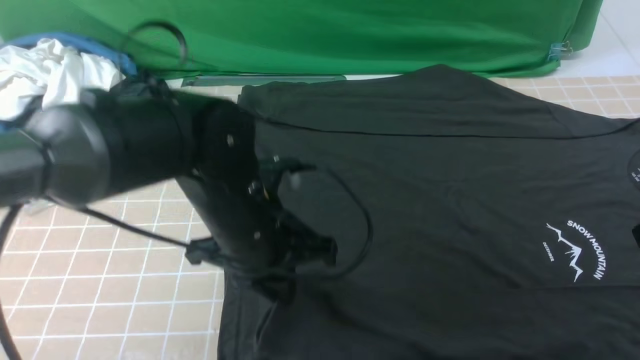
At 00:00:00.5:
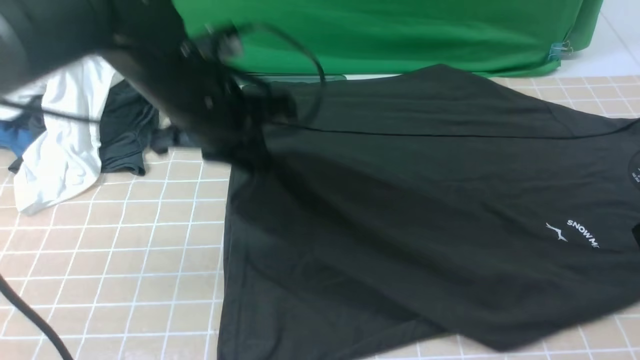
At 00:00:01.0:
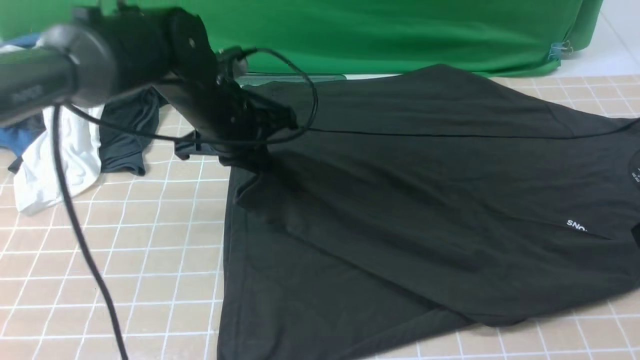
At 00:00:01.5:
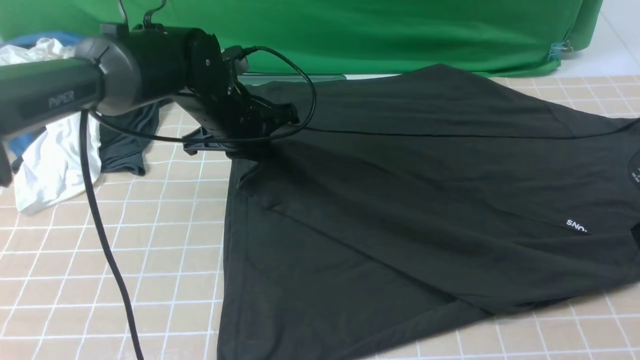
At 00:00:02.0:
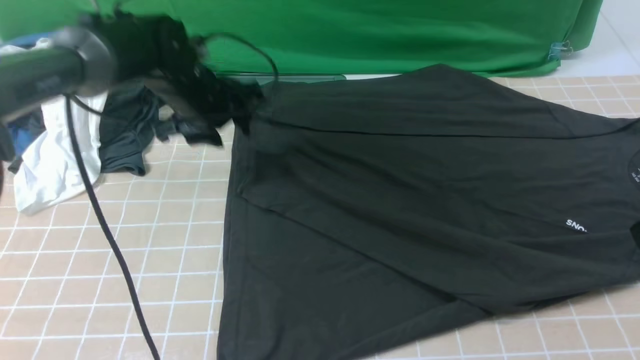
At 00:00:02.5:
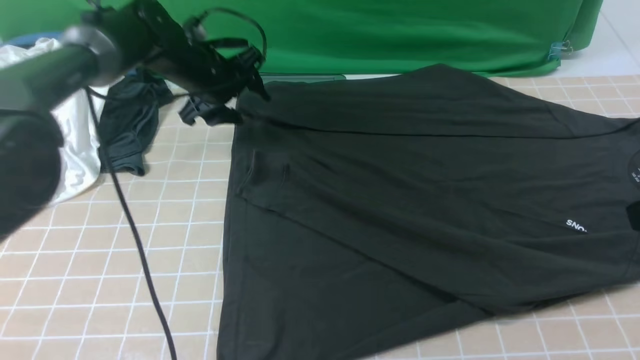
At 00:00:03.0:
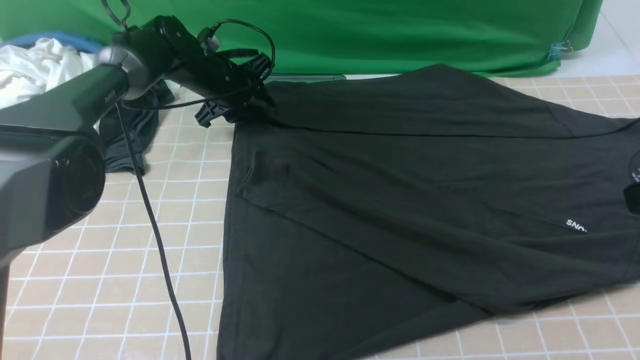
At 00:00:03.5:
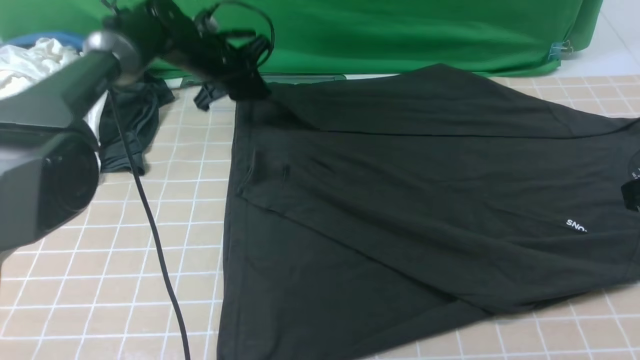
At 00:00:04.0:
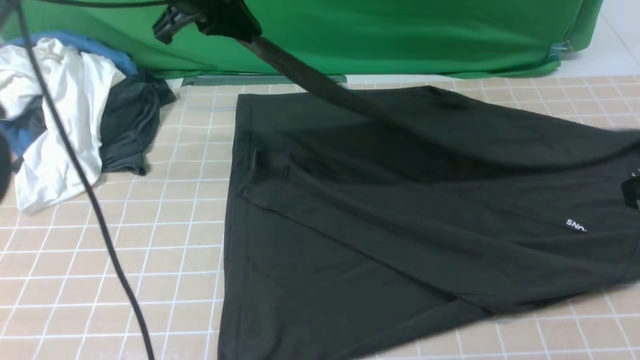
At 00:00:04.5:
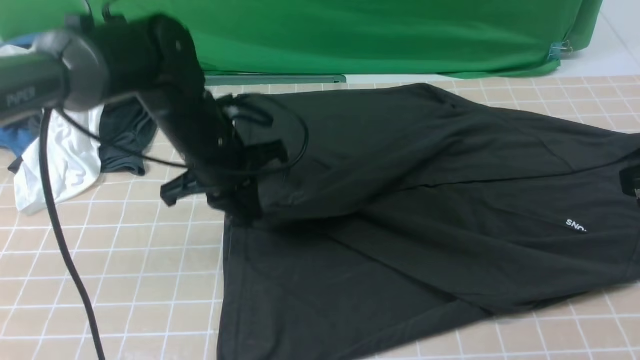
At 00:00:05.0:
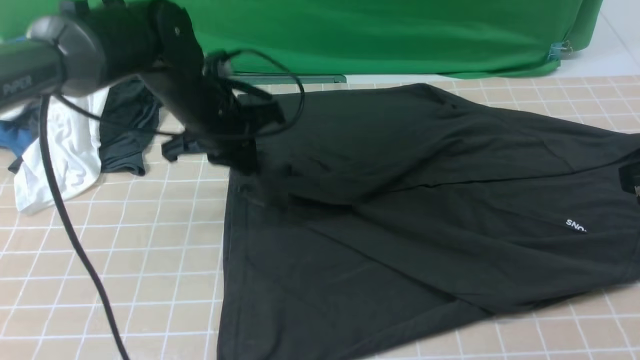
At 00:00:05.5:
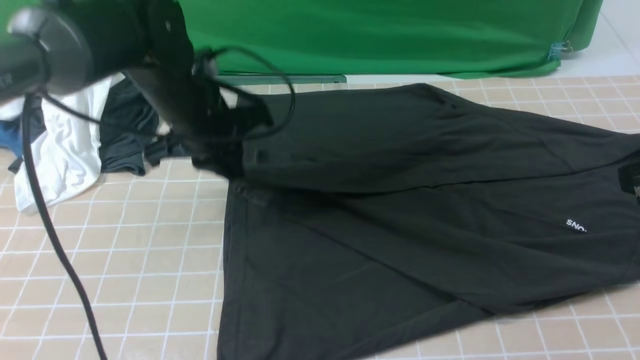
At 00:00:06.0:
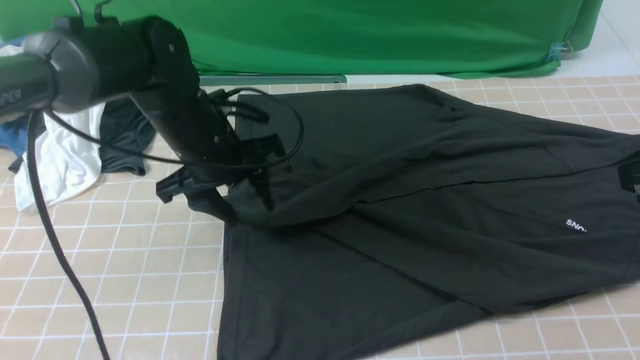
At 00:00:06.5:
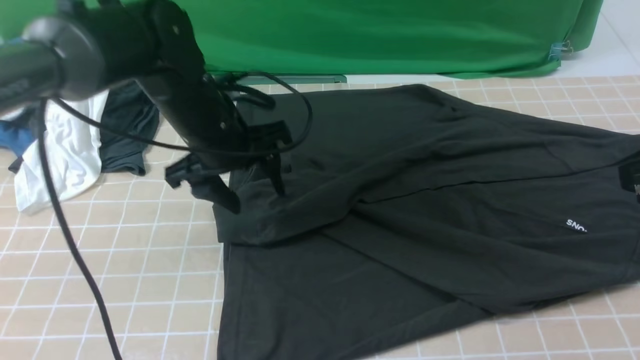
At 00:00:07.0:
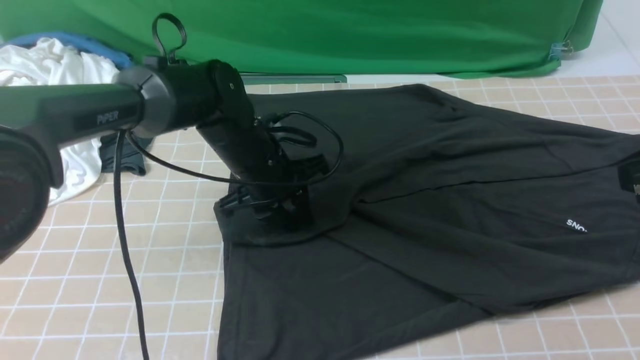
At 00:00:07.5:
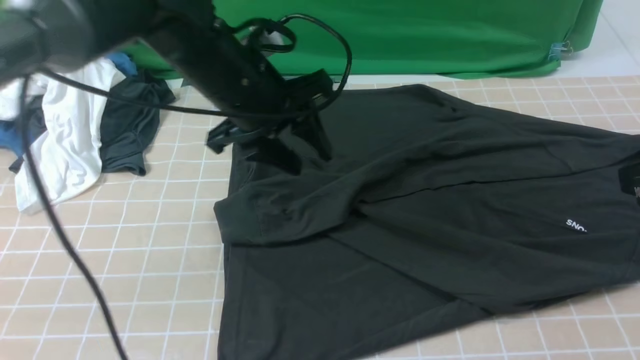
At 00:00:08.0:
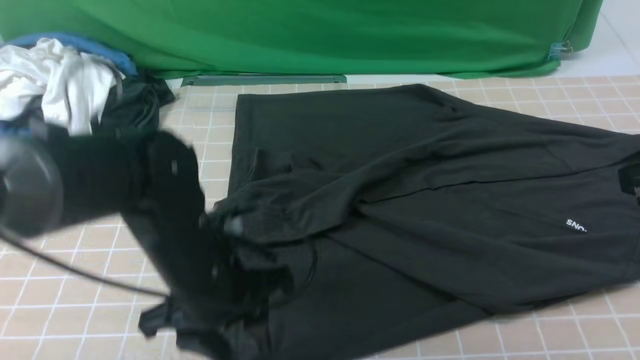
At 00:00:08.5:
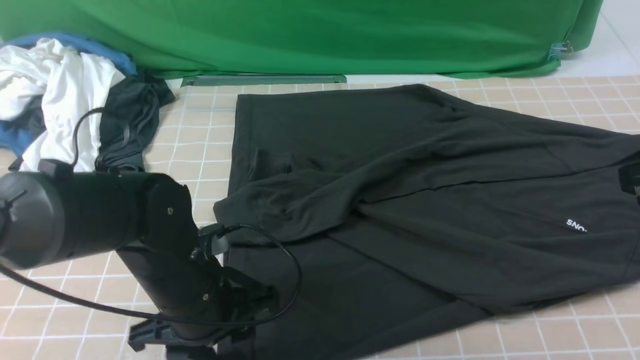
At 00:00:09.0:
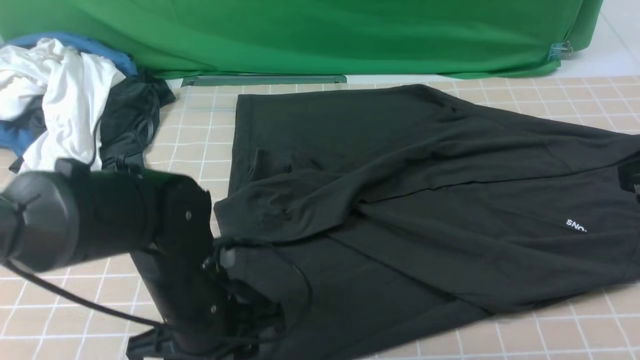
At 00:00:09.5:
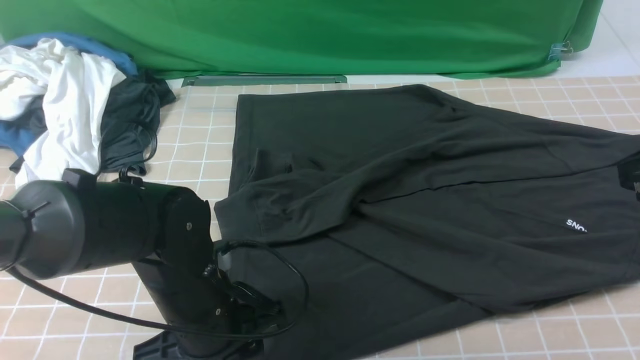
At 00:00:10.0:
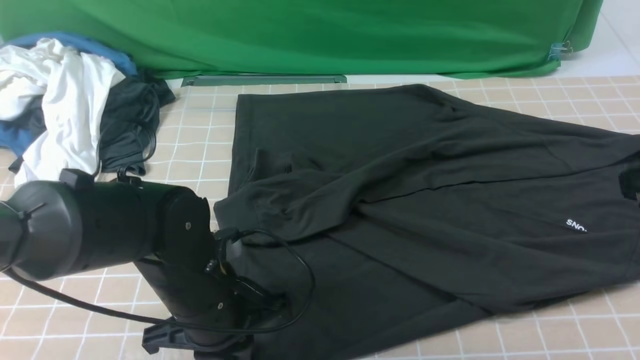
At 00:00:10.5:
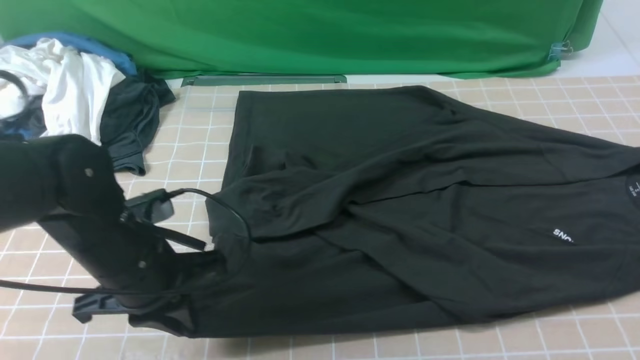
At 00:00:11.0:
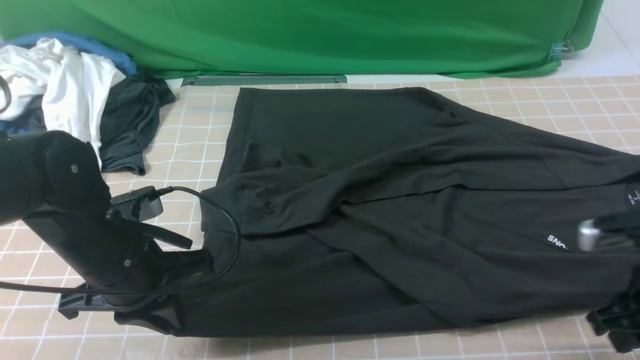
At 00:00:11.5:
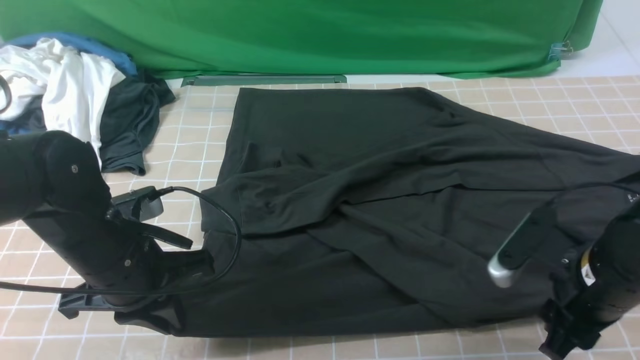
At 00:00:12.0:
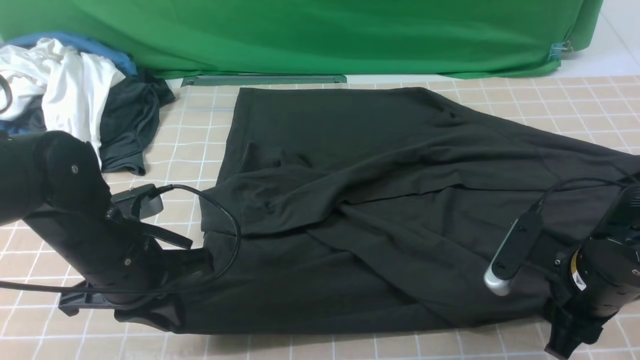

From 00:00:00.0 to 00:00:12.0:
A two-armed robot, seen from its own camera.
Step, from 00:00:00.0 to 00:00:02.0: use the left arm to drag and place the cuff at the centered position on the left edge of the fabric.
Step, from 00:00:02.5 to 00:00:03.0: use the left arm to clamp the cuff farthest from it.
Step, from 00:00:03.5 to 00:00:06.0: use the left arm to drag and drop the cuff onto the cuff closest to the left arm.
From 00:00:00.0 to 00:00:02.0: The left gripper shifts roughly 20 cm forward and to the left, and opens its fingers.
From 00:00:02.0 to 00:00:04.0: The left gripper moves upward, roughly 10 cm, and closes.
From 00:00:04.0 to 00:00:06.0: The left gripper goes roughly 15 cm downward and backward, and opens its fingers.
From 00:00:06.0 to 00:00:08.0: The left gripper is displaced backward by roughly 10 cm.
From 00:00:08.0 to 00:00:10.0: The left gripper closes up.
From 00:00:10.0 to 00:00:12.0: The left gripper goes approximately 5 cm to the left. The right gripper shifts some 15 cm downward, and opens.

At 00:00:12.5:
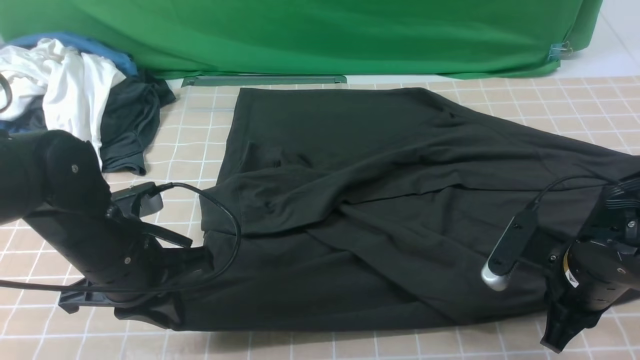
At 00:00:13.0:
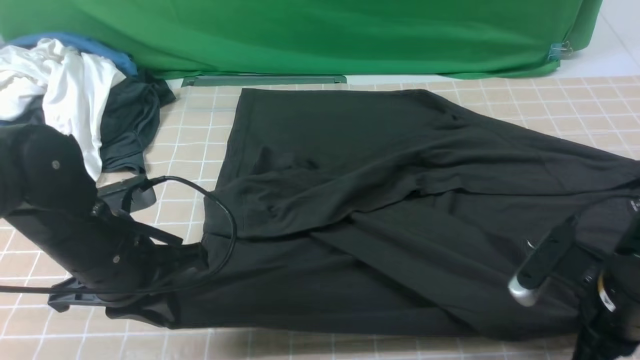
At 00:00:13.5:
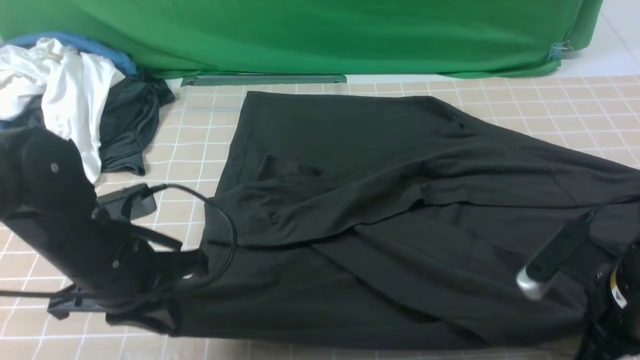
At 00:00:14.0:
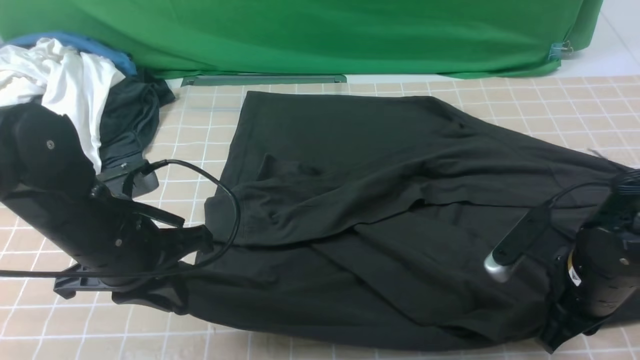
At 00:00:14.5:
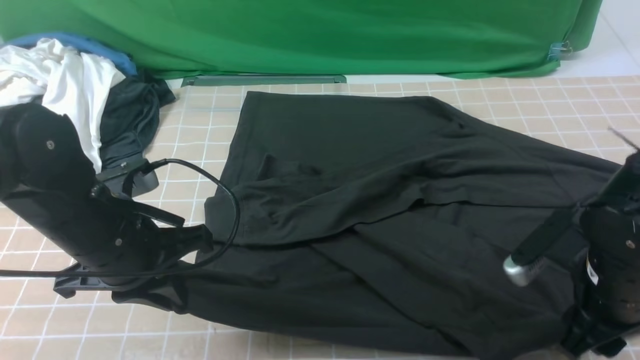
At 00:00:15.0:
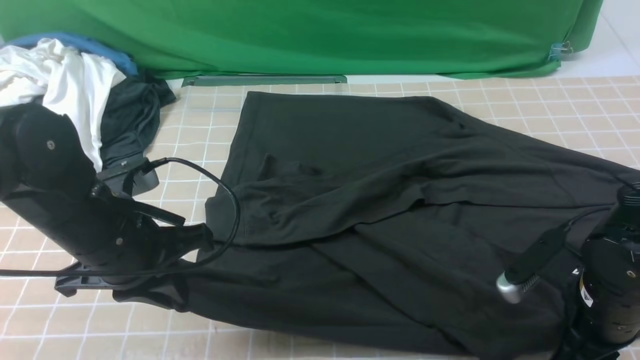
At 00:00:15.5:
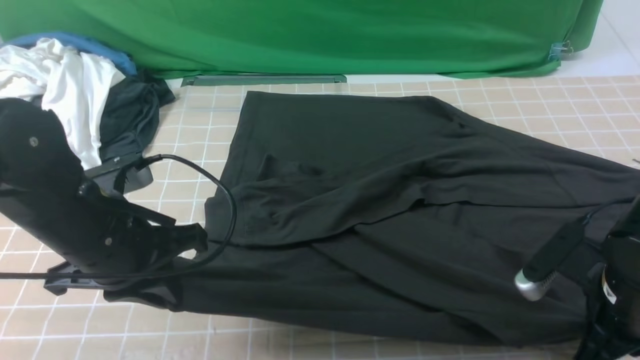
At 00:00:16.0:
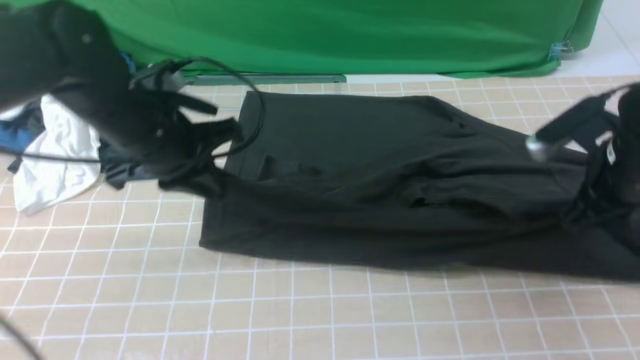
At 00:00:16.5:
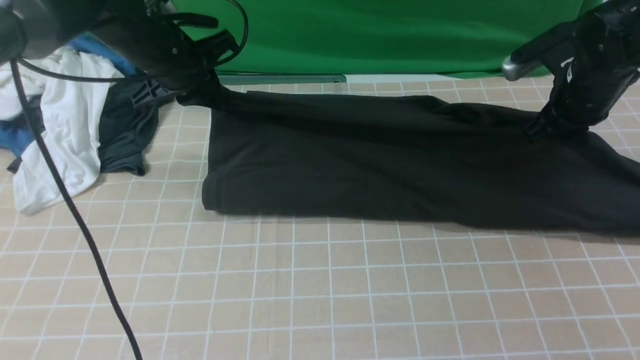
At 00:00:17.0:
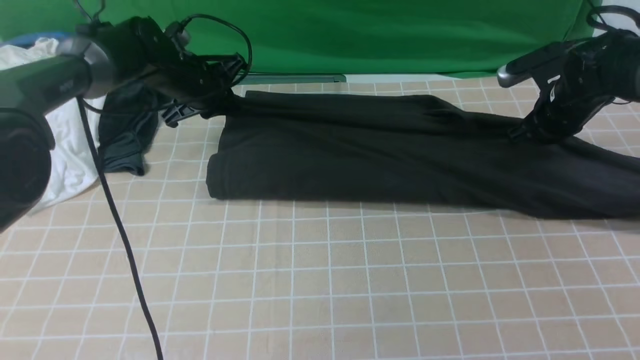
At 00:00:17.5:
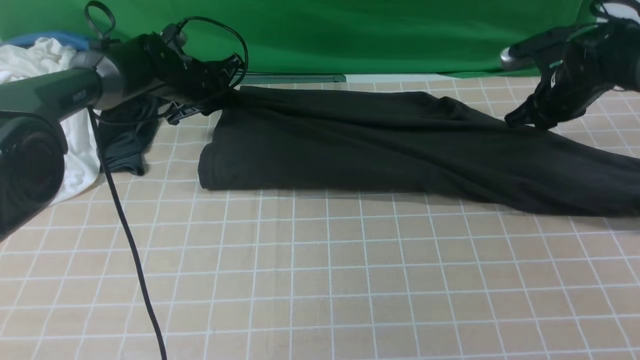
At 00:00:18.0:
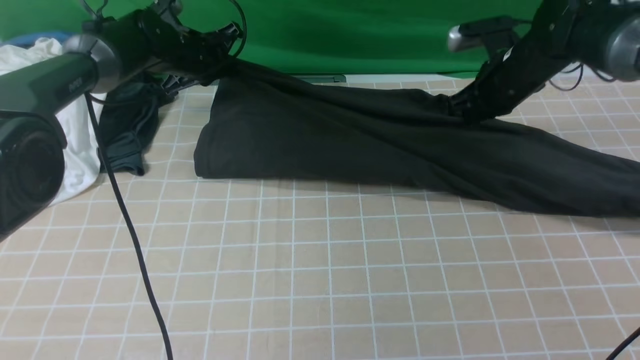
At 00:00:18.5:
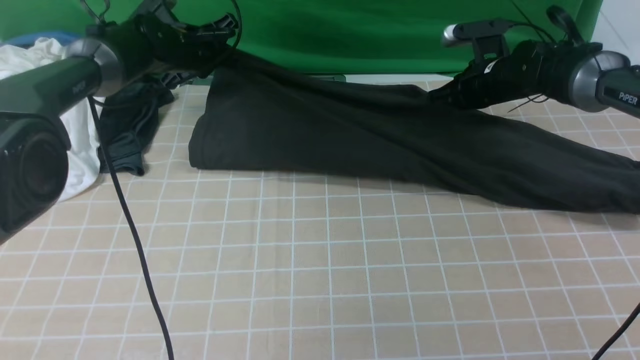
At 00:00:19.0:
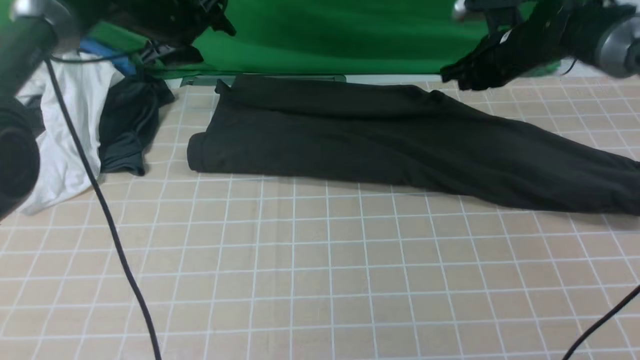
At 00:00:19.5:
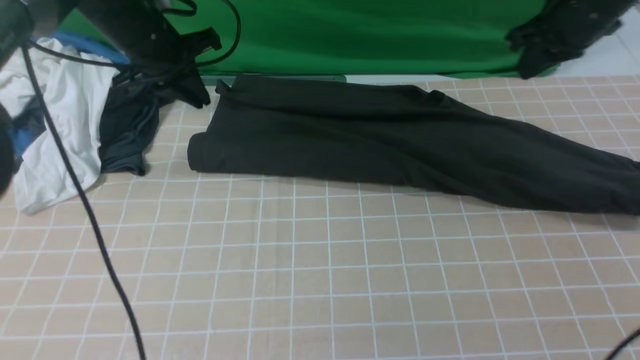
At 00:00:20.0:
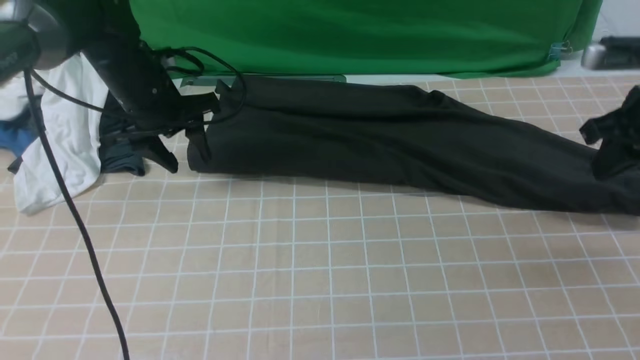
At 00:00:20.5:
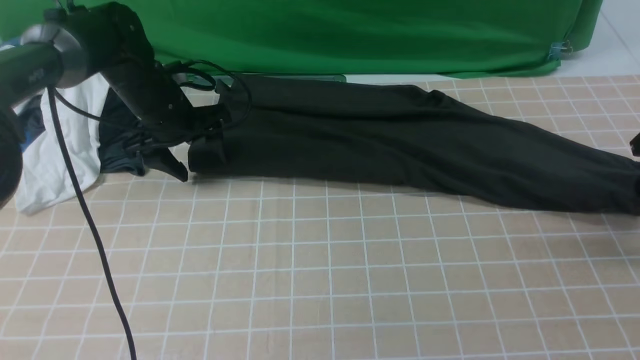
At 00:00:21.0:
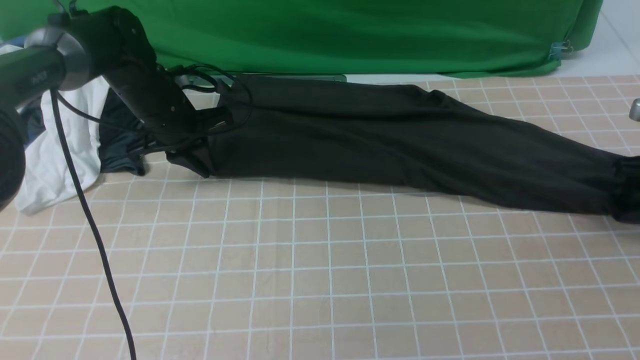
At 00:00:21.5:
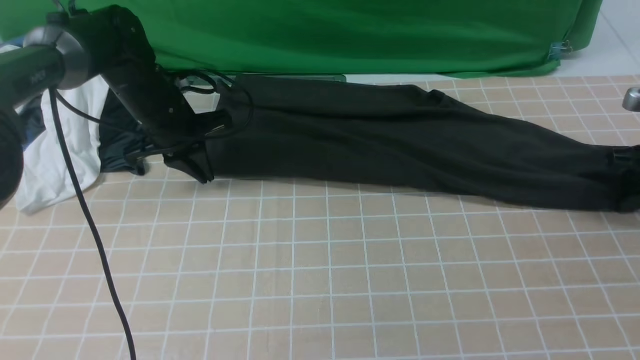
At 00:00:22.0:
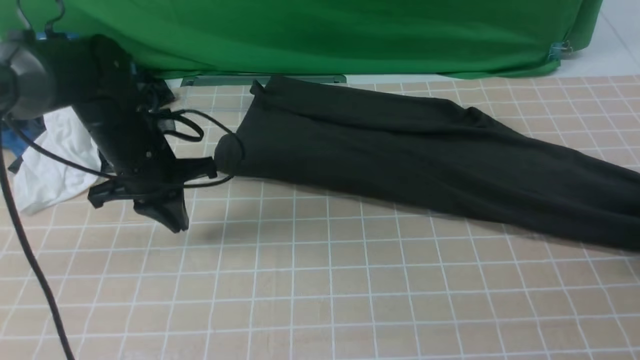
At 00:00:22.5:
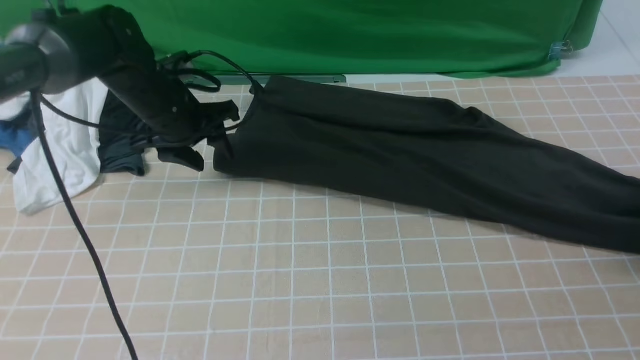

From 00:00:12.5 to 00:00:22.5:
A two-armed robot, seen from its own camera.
Step, from 00:00:12.5 to 00:00:15.0: use both arms simultaneously to clamp the lower edge of the clothing fabric.
Step, from 00:00:15.5 to 00:00:18.5: use both arms to drag the lower edge of the fabric forward and fold it over the upper edge.
Step, from 00:00:19.0 to 00:00:21.0: use the right arm to clamp the right edge of the fabric.
From 00:00:12.5 to 00:00:14.5: The right gripper opens its fingers.
From 00:00:14.5 to 00:00:16.5: The grippers both shift forward by approximately 20 cm. The right gripper closes.
From 00:00:16.5 to 00:00:18.5: The right gripper heads forward, downward and to the left, covering about 15 cm, and opens, then closes once more. The left gripper moves forward and downward, approximately 10 cm.
From 00:00:18.5 to 00:00:20.5: The right gripper shifts some 25 cm to the right and backward, and opens; the left gripper moves backward, about 10 cm, and opens its fingers.
From 00:00:20.5 to 00:00:22.5: The right gripper shifts by approximately 5 cm, and closes up. Meanwhile the left gripper closes, then reopens.
